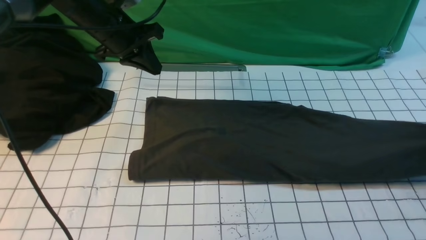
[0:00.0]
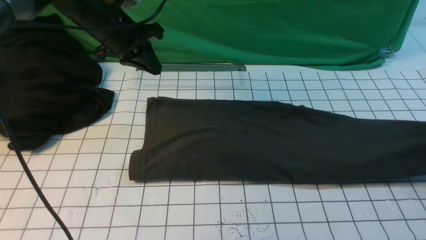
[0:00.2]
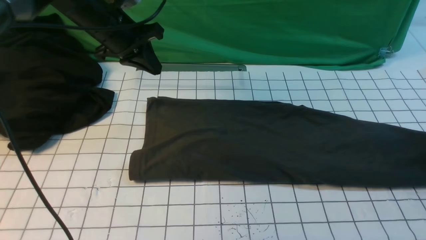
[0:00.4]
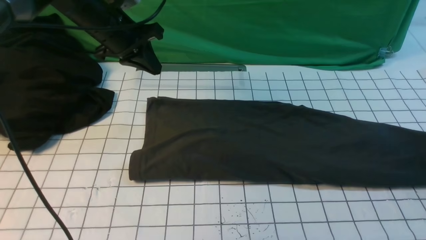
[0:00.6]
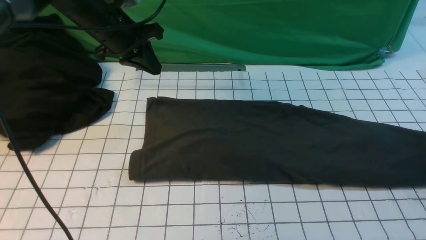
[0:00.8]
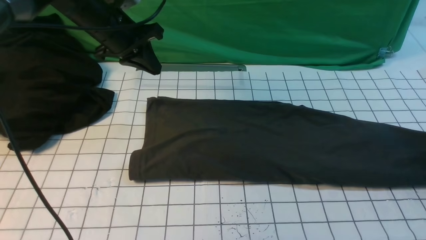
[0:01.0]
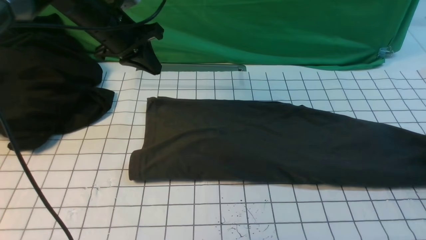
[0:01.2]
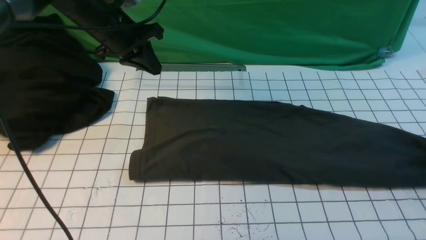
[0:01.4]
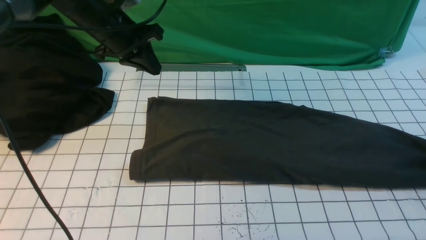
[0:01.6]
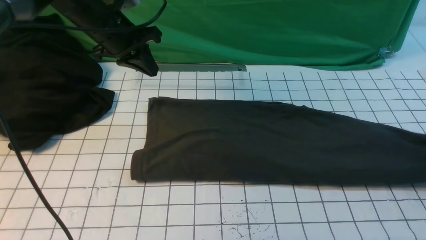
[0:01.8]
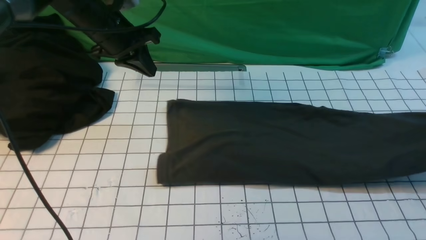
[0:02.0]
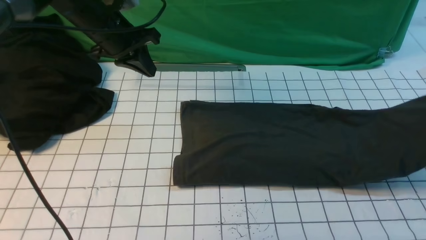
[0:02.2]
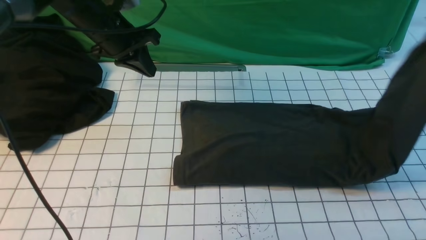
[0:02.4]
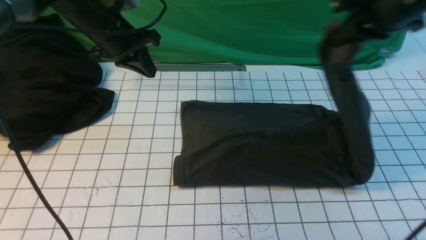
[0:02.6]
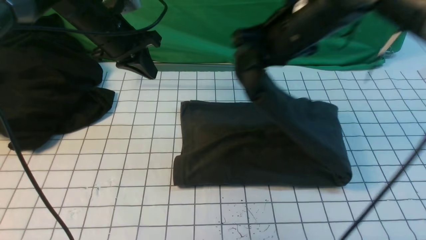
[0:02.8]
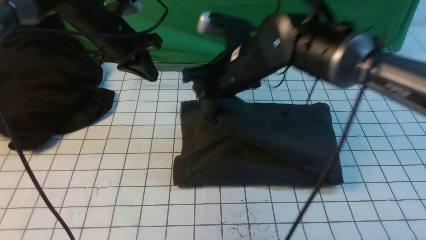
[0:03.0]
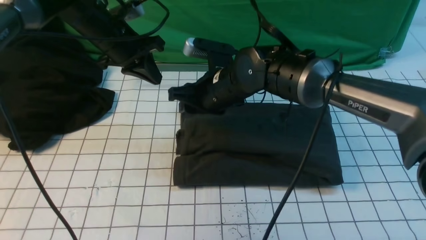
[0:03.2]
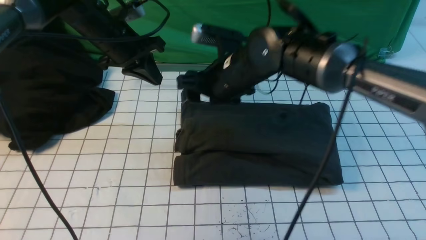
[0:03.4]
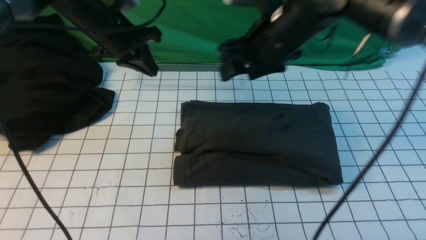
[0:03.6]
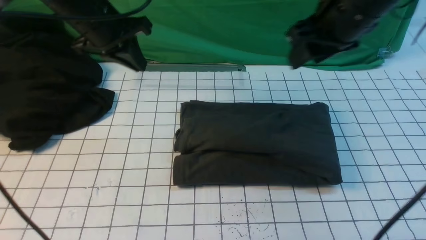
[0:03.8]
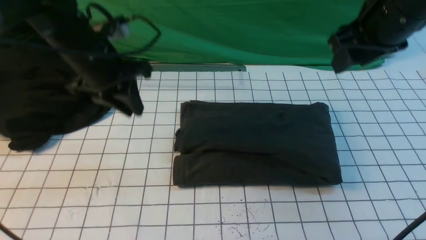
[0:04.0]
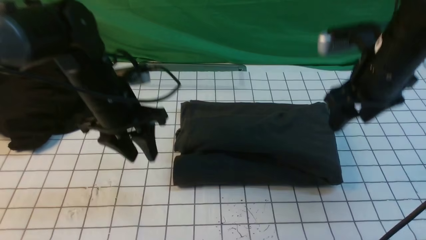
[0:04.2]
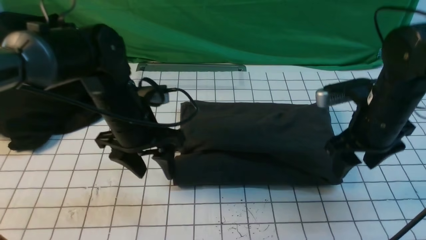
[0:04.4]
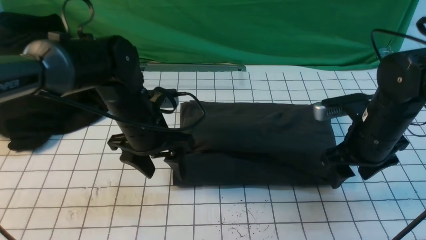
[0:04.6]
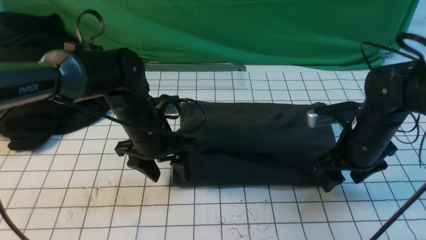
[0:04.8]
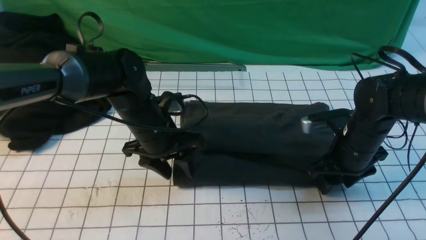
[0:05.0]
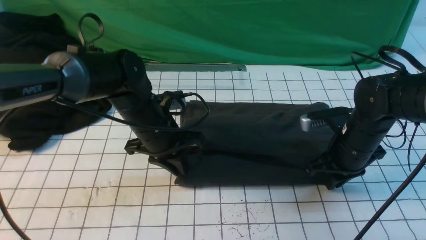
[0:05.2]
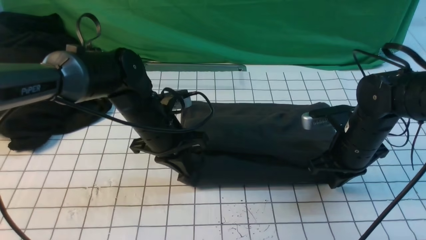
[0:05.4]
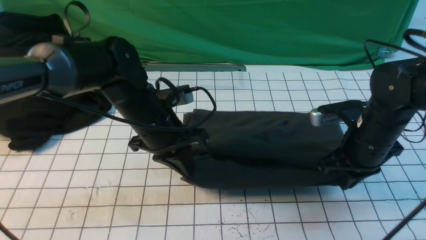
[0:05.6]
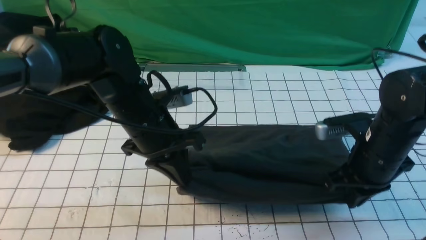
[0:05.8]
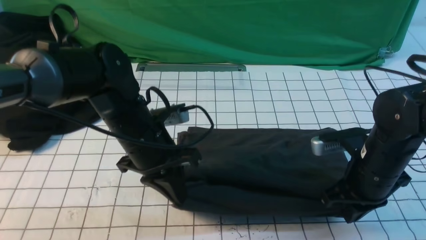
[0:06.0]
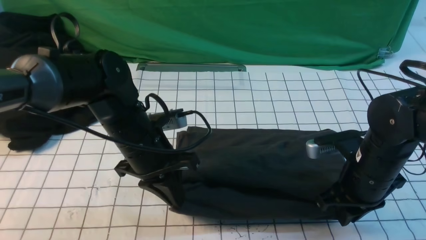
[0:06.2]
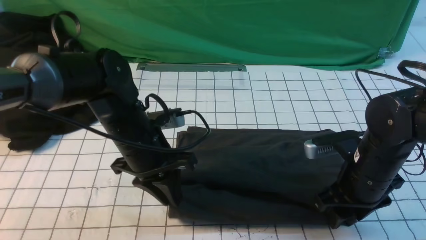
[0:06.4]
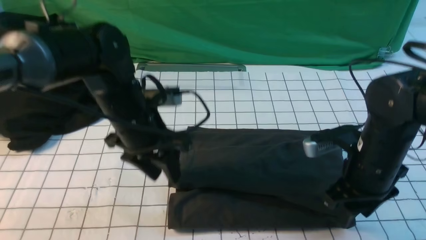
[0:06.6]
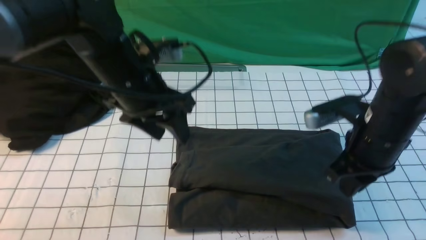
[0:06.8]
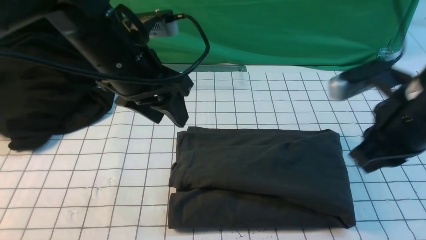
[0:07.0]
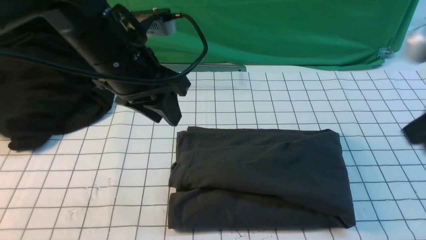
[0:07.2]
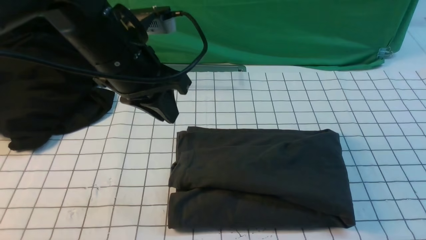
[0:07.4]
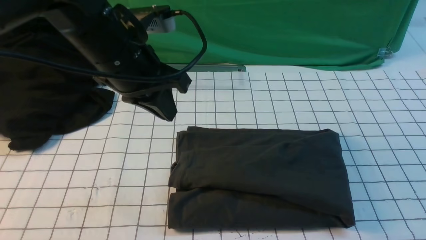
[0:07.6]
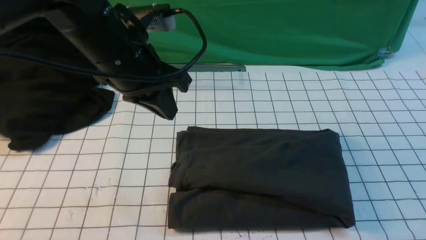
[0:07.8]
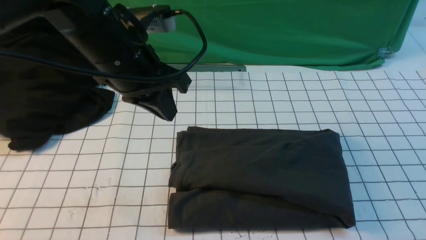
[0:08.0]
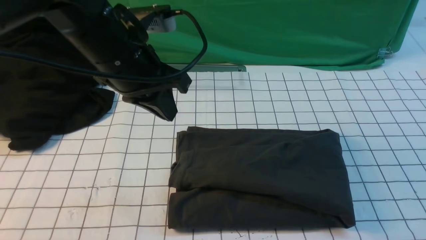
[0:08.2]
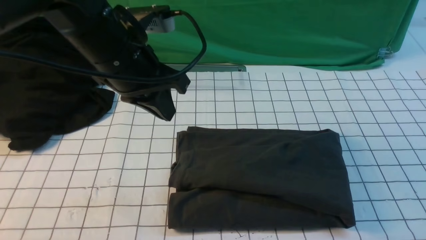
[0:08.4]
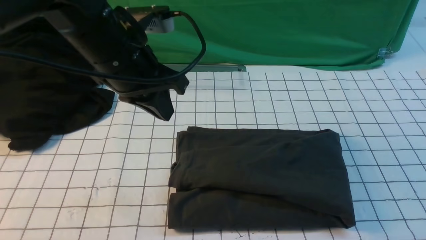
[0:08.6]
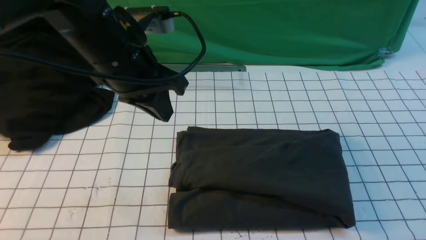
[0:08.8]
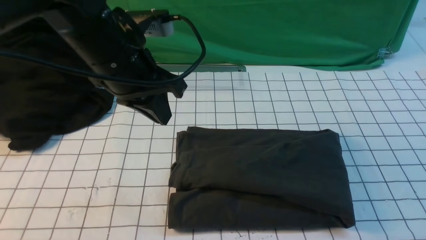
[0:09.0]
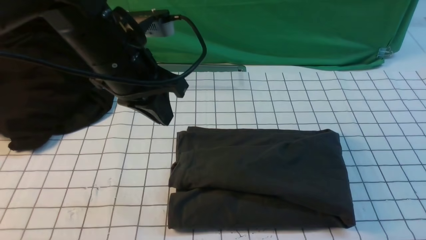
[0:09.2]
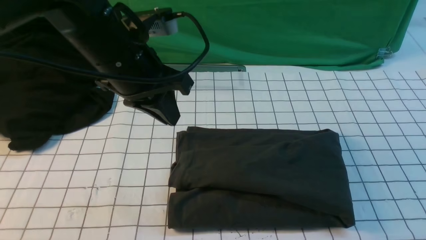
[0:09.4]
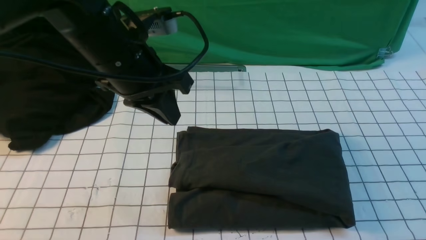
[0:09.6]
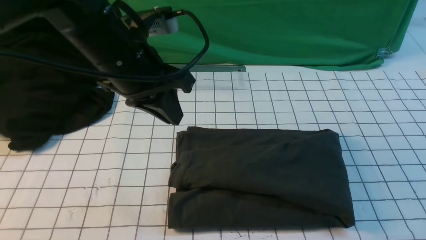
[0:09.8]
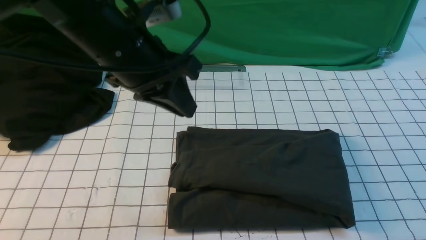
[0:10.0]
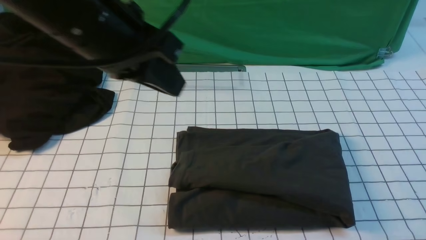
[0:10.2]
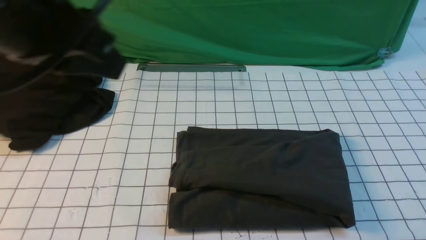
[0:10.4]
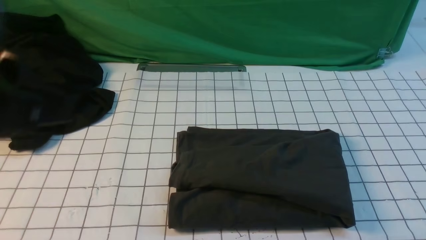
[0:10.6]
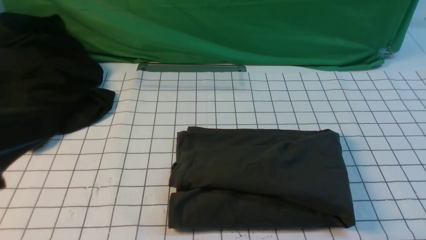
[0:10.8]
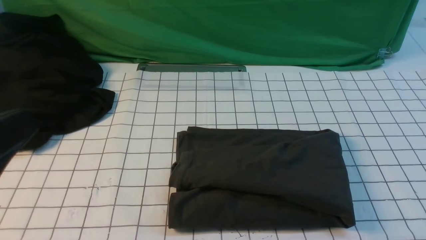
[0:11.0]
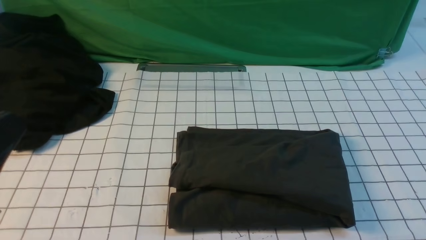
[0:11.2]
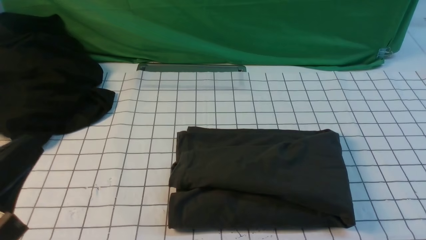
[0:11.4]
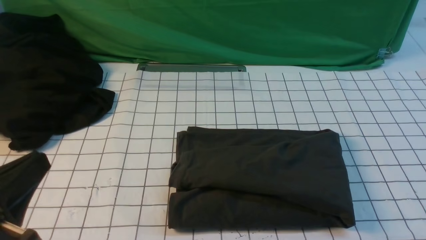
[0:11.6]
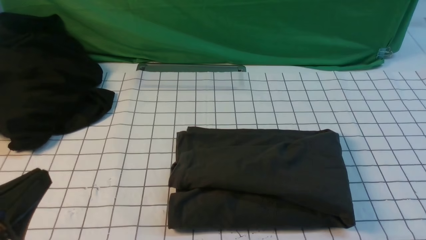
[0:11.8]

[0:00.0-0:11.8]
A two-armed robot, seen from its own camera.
Step, 0:01.8 to 0:03.2: use the right arm to drag the right edge of the fabric to the left and folds it over the left edge.
0:00.0 to 0:01.4: The right gripper shifts approximately 5 cm downward, and opens up.
0:01.4 to 0:03.0: The right gripper travels to the left by some 50 cm.
0:03.0 to 0:04.4: The right gripper goes approximately 20 cm to the right, and opens. Meanwhile the left gripper moves backward, to the right and downward, roughly 15 cm, and opens its fingers.
0:04.4 to 0:06.0: The left gripper closes; the right gripper goes roughly 5 cm downward and backward, and closes.
0:06.0 to 0:07.4: The left gripper moves upward, approximately 10 cm, and opens, then closes again. The right gripper is displaced upward and backward by about 30 cm, and opens, then closes once more.
0:07.4 to 0:08.8: The right gripper moves downward, roughly 5 cm.
0:08.8 to 0:10.4: The right gripper travels downward by roughly 15 cm; the left gripper travels backward and upward by about 15 cm.
0:10.4 to 0:11.8: The left gripper travels downward and backward by about 20 cm.

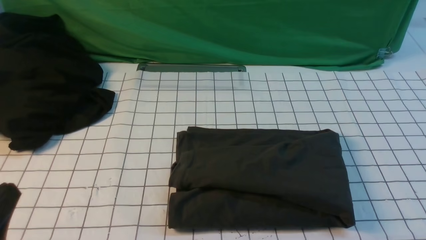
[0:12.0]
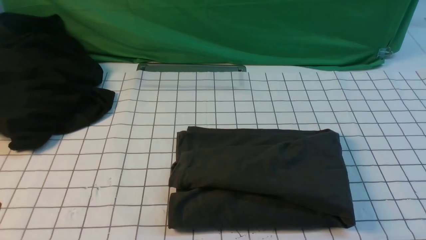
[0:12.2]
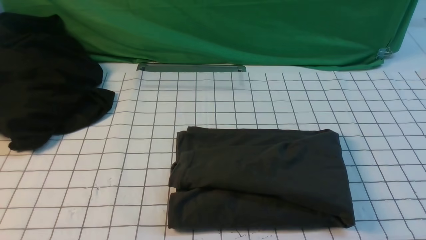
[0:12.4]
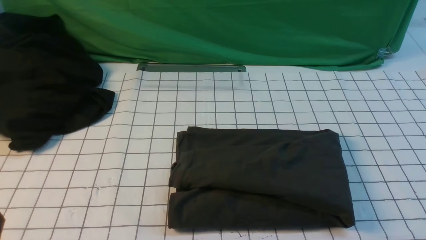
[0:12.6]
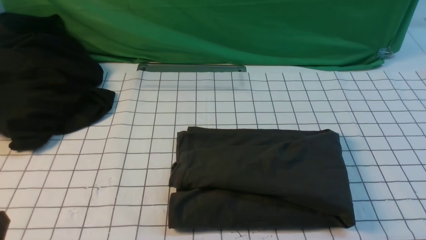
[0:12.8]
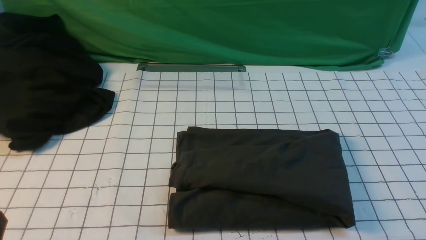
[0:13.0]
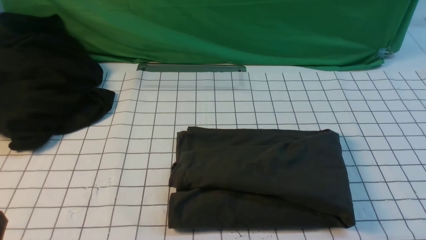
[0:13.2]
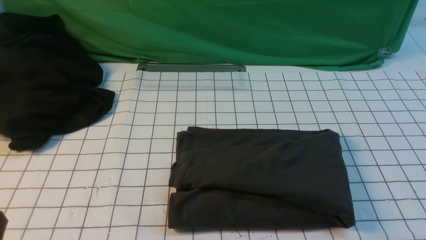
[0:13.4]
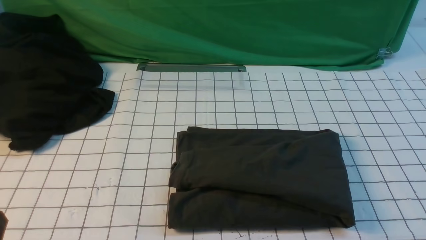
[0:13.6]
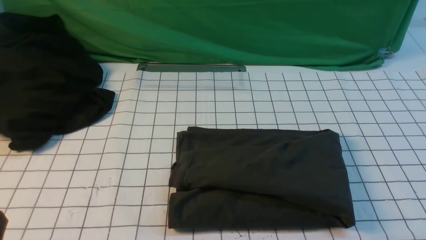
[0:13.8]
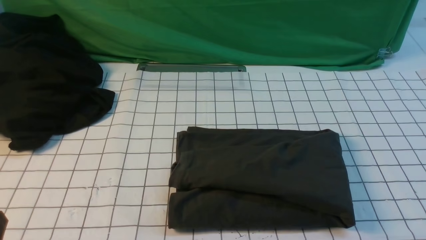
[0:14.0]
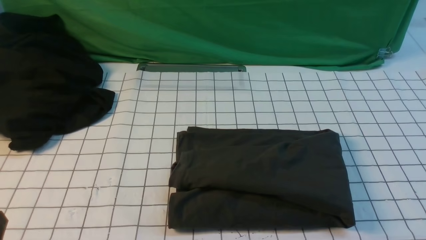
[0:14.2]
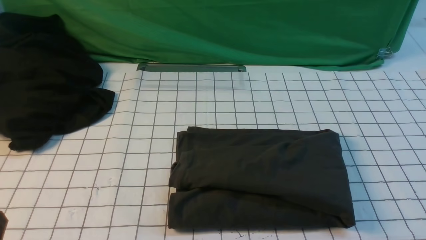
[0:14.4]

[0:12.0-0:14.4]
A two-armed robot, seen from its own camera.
0:13.2 to 0:14.4: Both grippers stay put.

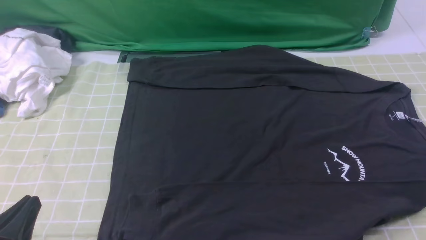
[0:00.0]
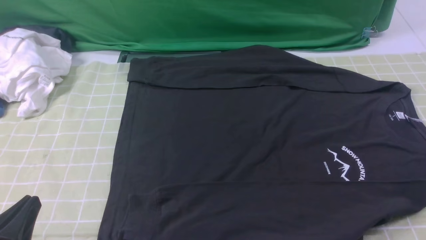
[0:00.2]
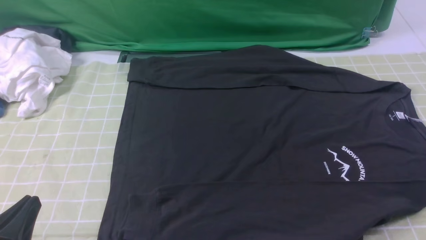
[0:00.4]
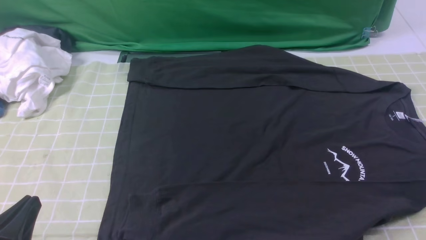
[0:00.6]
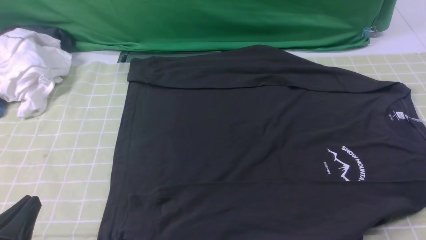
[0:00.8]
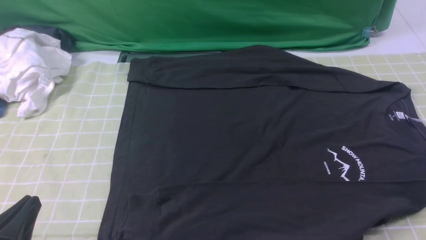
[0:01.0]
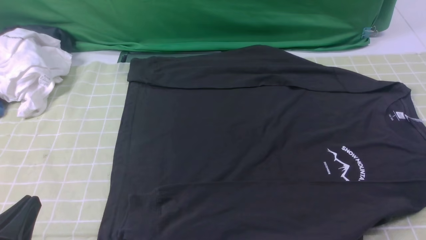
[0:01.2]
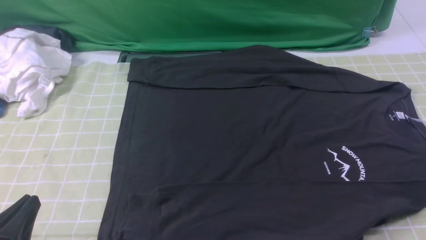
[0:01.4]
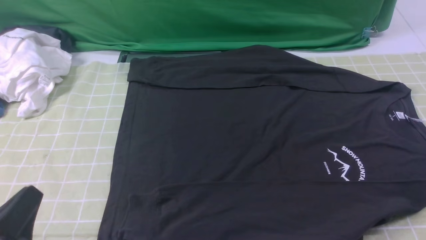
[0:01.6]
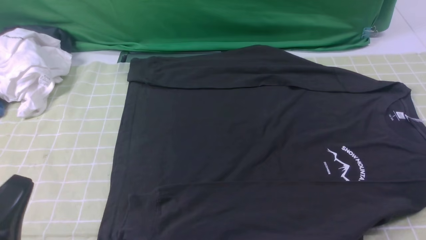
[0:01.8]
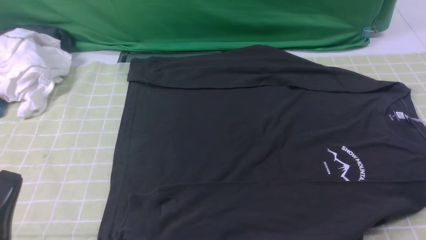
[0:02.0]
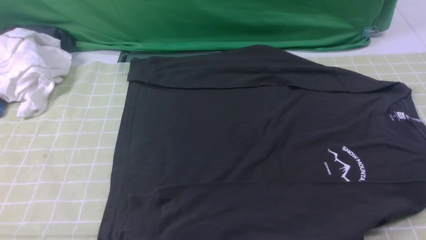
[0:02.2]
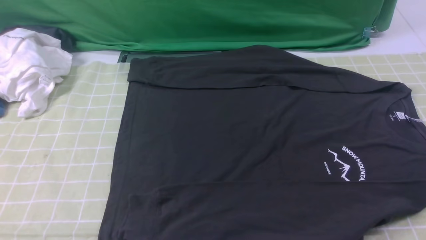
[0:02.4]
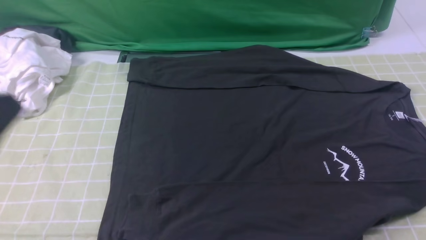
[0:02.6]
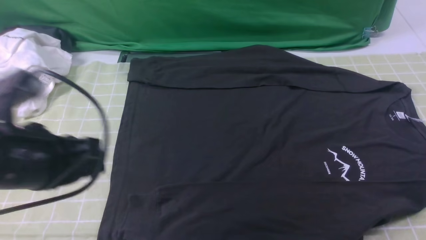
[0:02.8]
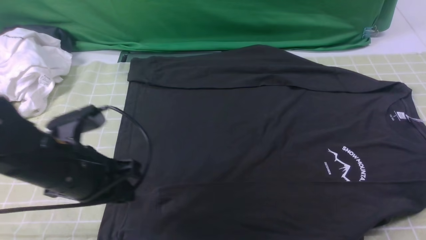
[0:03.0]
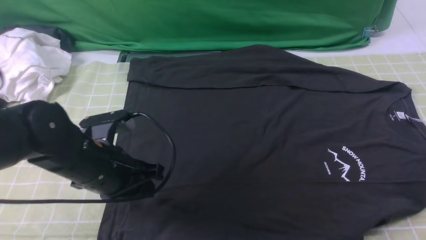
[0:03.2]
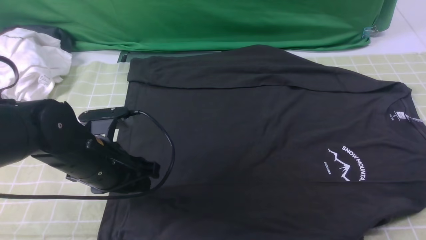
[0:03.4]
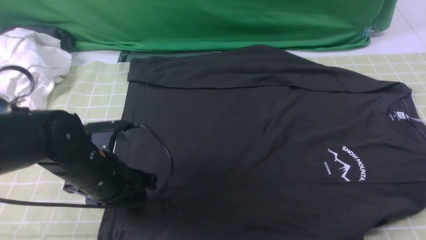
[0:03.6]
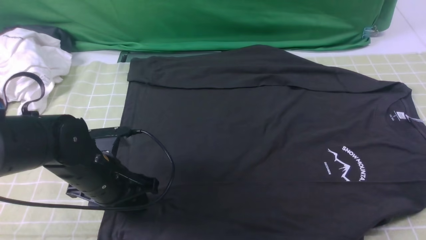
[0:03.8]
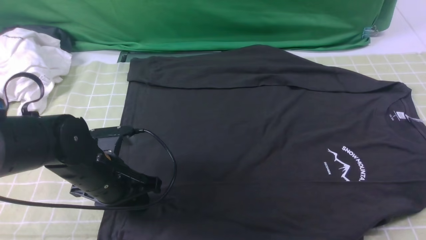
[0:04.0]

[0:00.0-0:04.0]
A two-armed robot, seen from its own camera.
0:01.4 to 0:02.6: The left gripper moves upward and forward, approximately 15 cm.
0:02.6 to 0:04.0: The right gripper heads forward, covering approximately 10 cm, while the left gripper travels downward and forward by about 20 cm, and opens.
